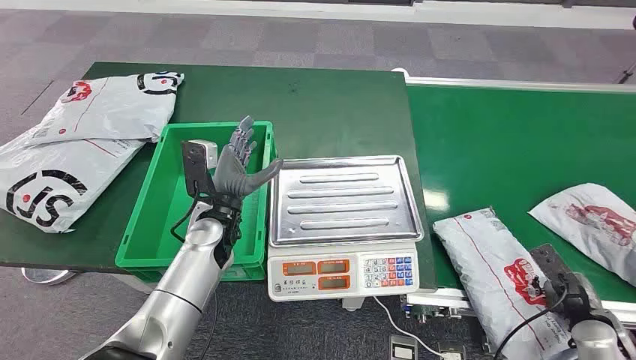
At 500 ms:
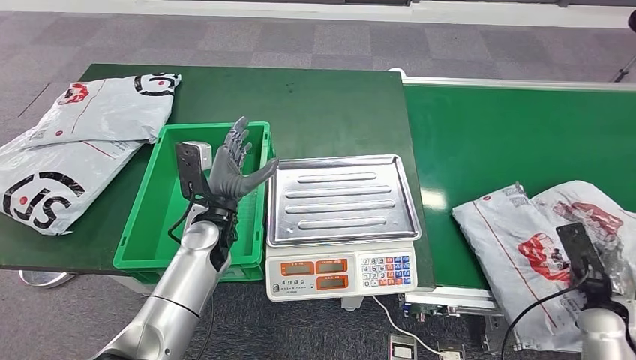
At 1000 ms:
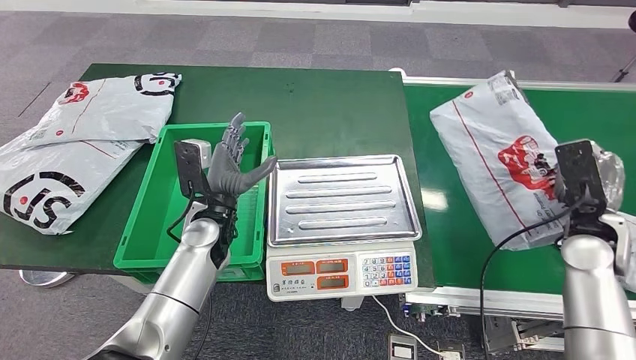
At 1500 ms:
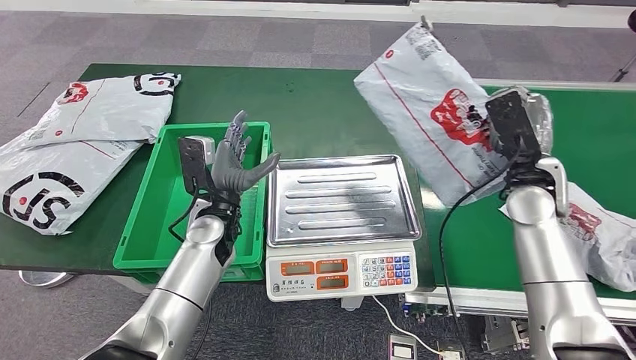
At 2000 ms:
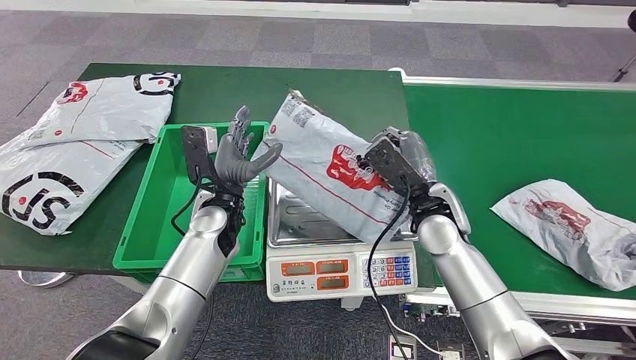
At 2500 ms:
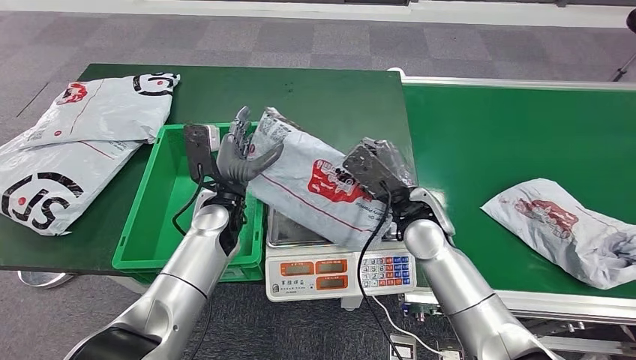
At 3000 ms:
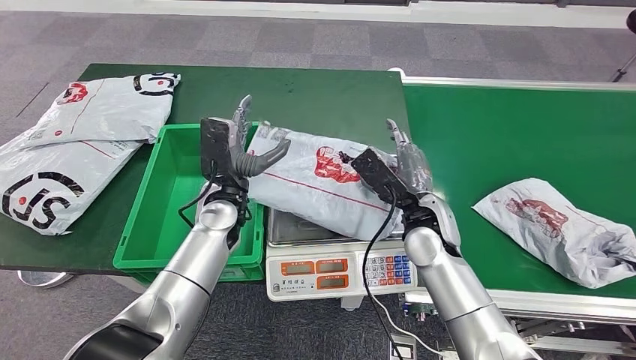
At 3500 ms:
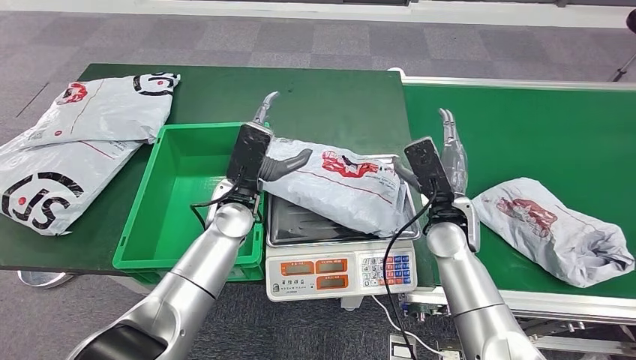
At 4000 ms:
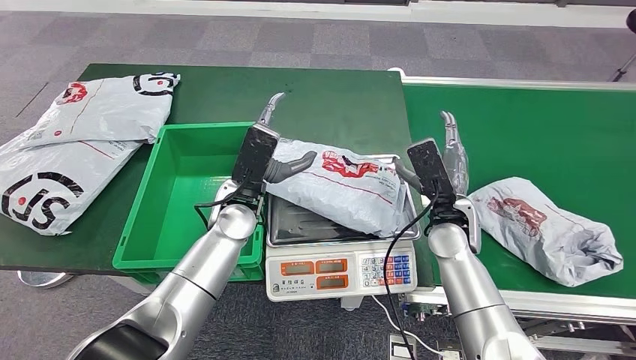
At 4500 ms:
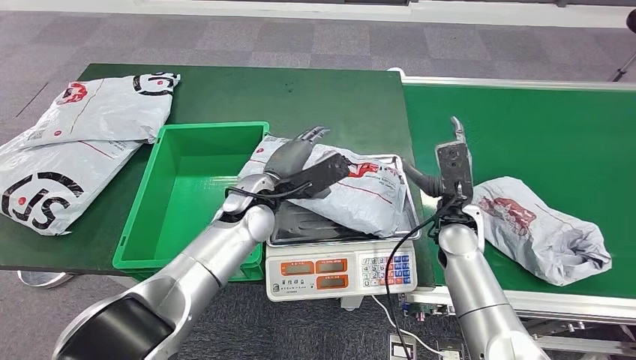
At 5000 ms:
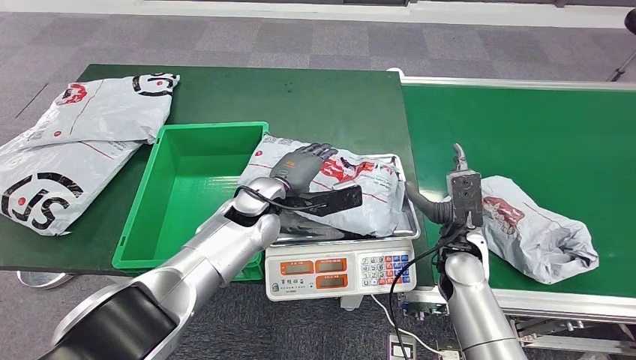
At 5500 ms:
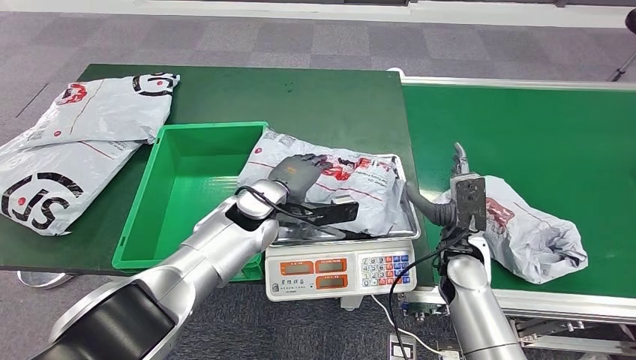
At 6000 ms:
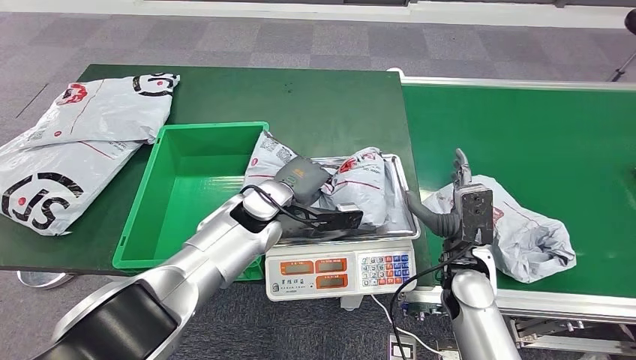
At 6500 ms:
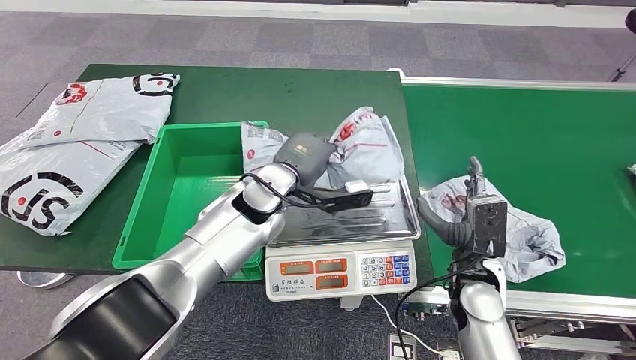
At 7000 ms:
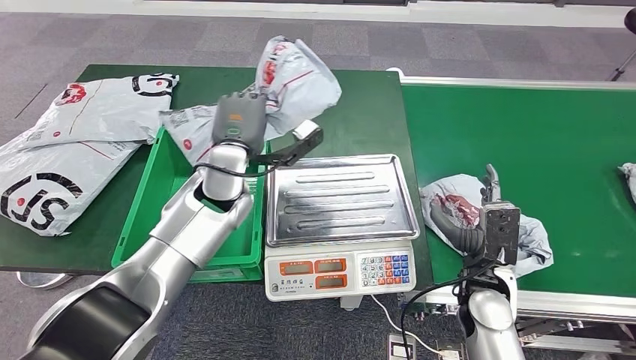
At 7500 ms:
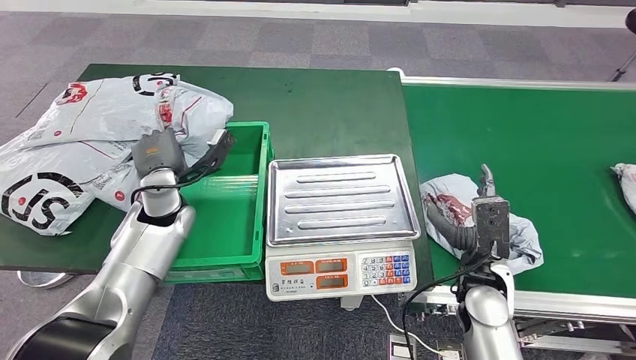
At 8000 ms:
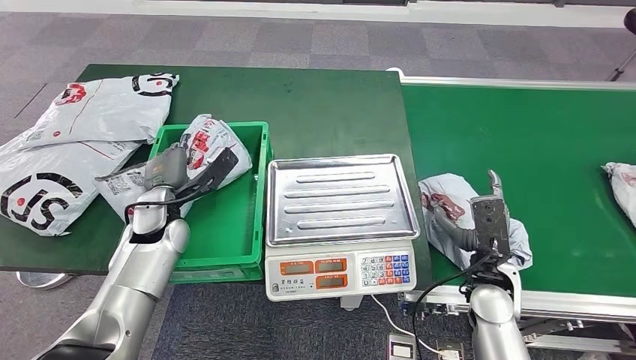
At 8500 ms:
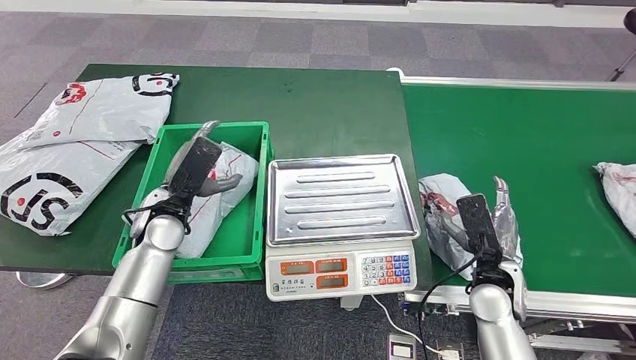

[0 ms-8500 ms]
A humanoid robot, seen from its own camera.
Step, 0 ms to 1000 ms: Take the parcel off the conveyor belt.
Step, 1500 ms to 3000 ms: Place the parcel onto the inbound machine.
Step, 5000 ms to 6500 ms: Pick up the parcel from the inbound machine.
Step, 7500 ms to 8500 ms: Put the parcel inside the courier box.

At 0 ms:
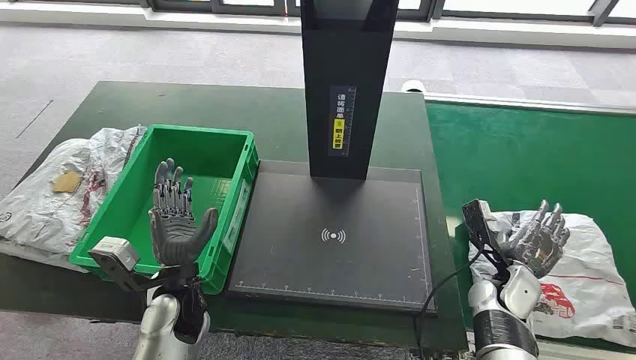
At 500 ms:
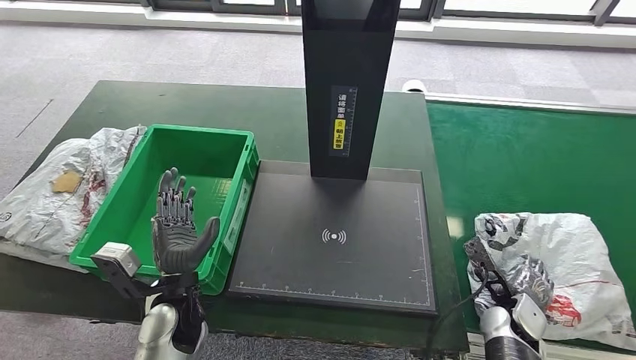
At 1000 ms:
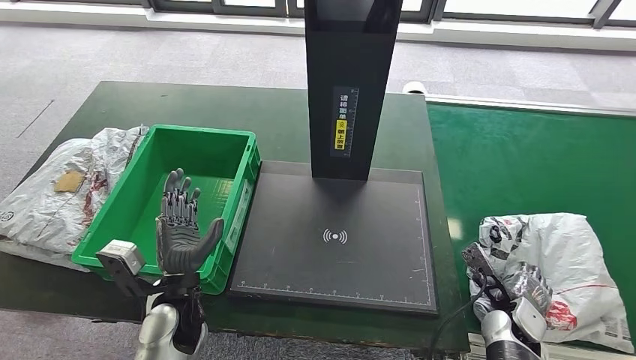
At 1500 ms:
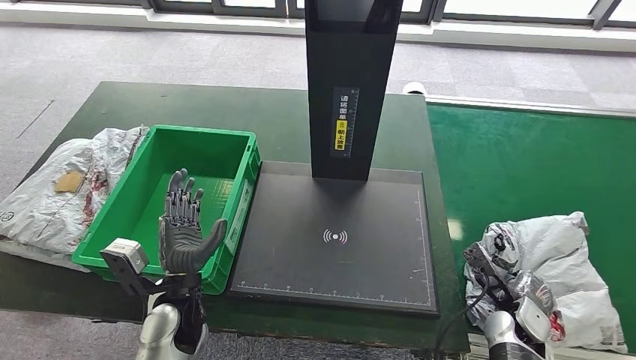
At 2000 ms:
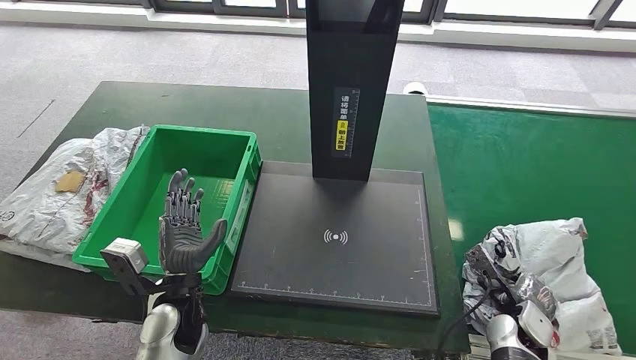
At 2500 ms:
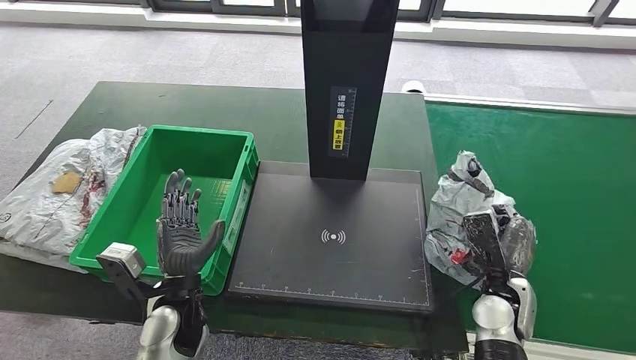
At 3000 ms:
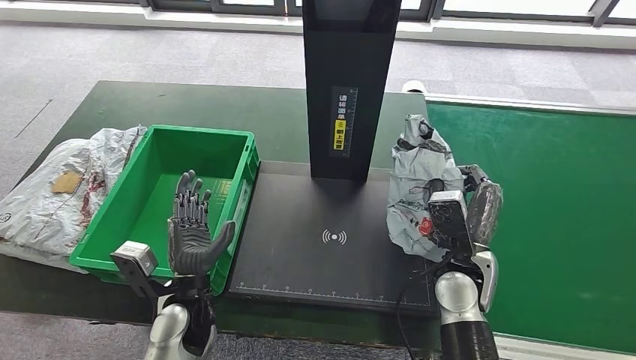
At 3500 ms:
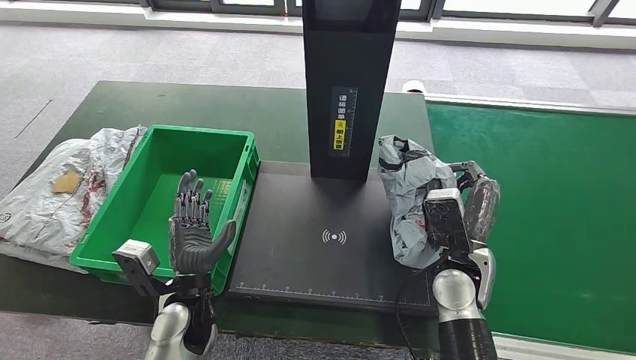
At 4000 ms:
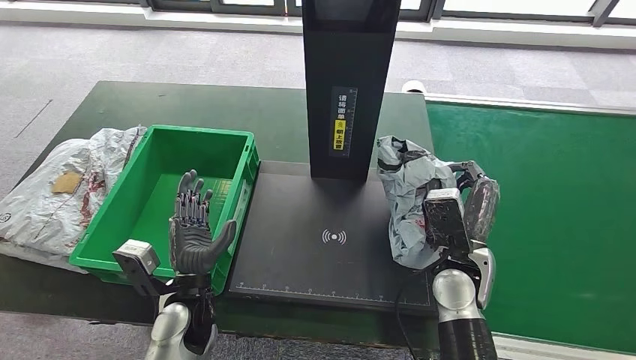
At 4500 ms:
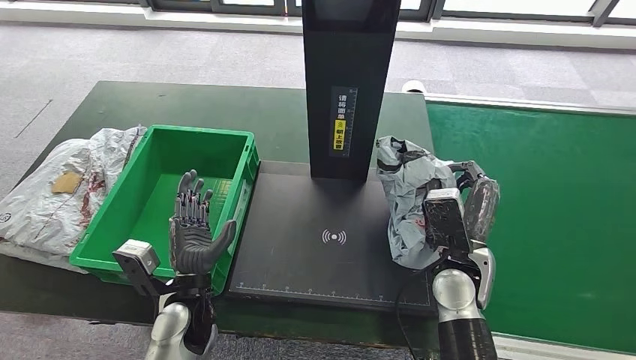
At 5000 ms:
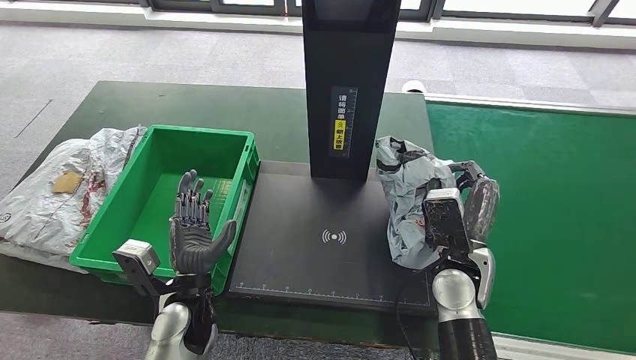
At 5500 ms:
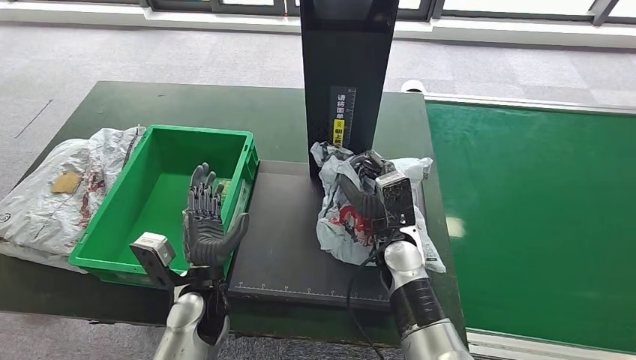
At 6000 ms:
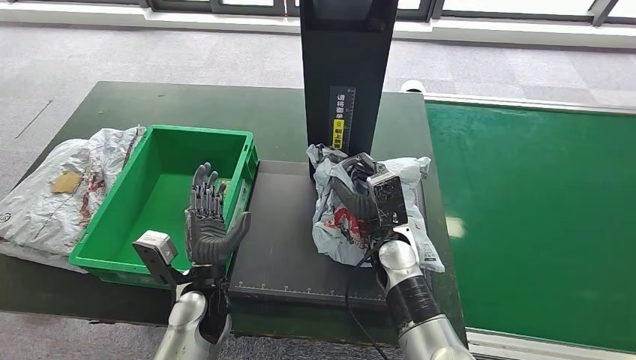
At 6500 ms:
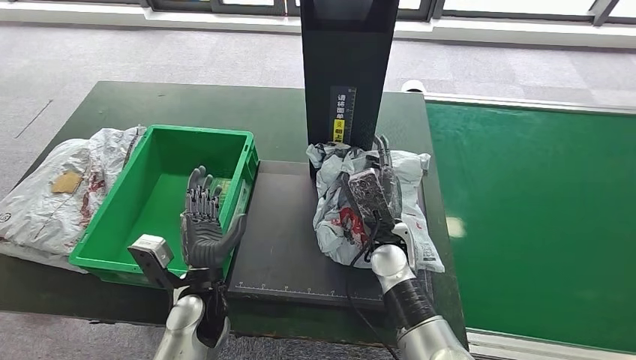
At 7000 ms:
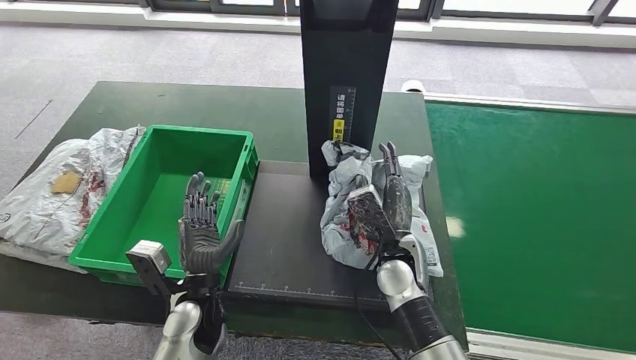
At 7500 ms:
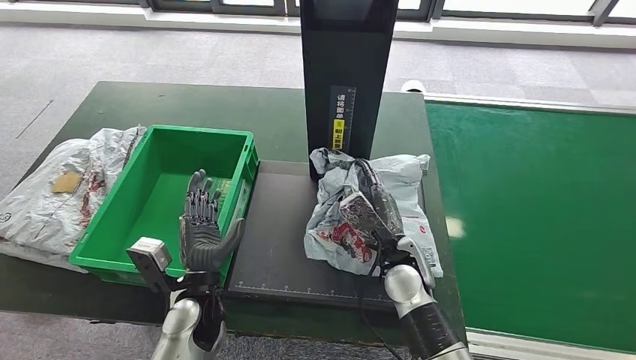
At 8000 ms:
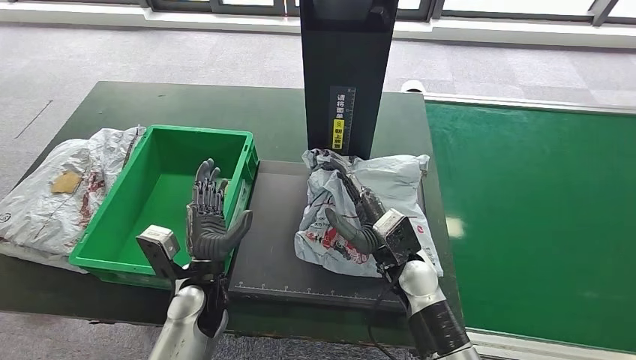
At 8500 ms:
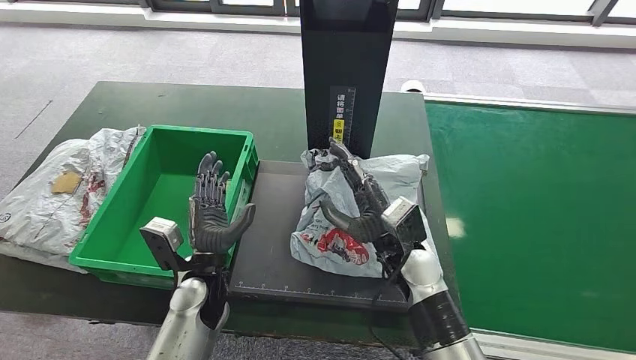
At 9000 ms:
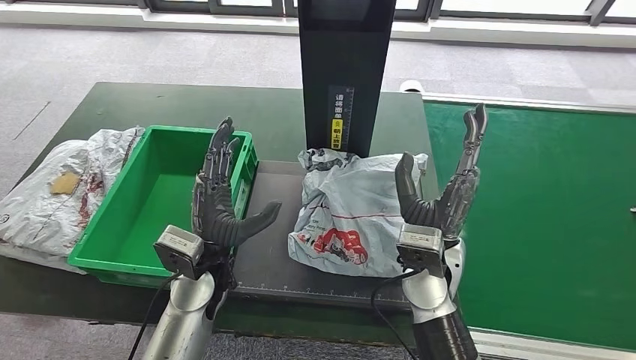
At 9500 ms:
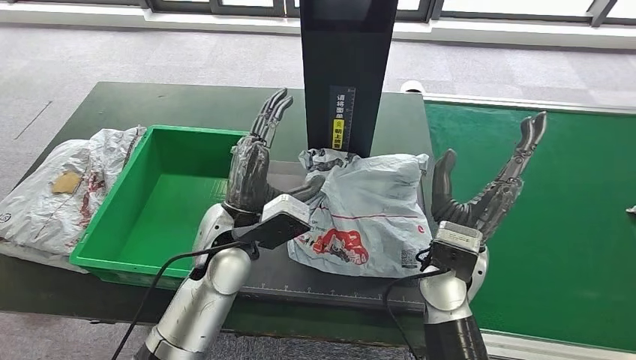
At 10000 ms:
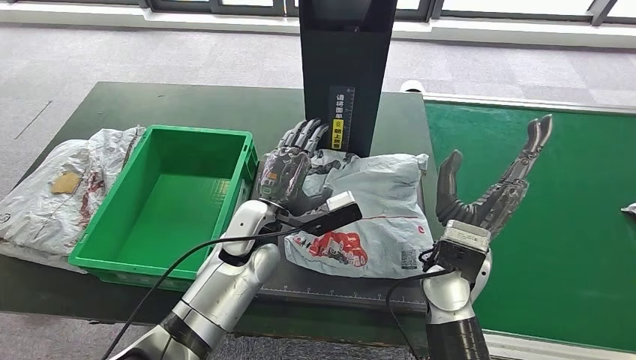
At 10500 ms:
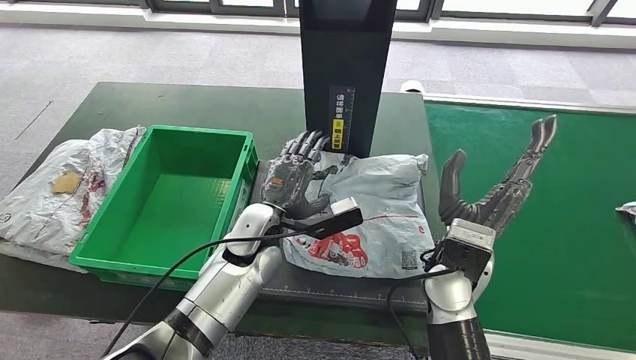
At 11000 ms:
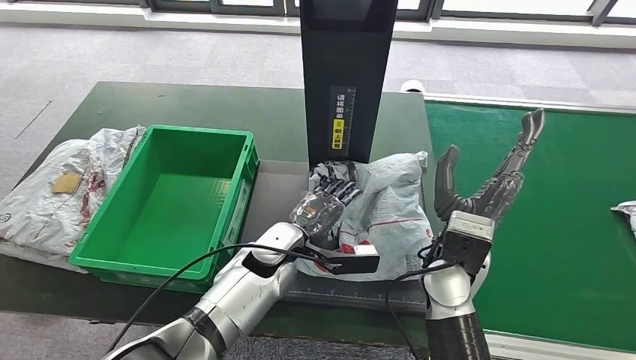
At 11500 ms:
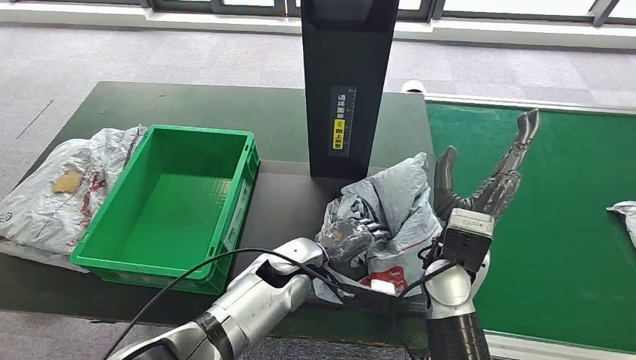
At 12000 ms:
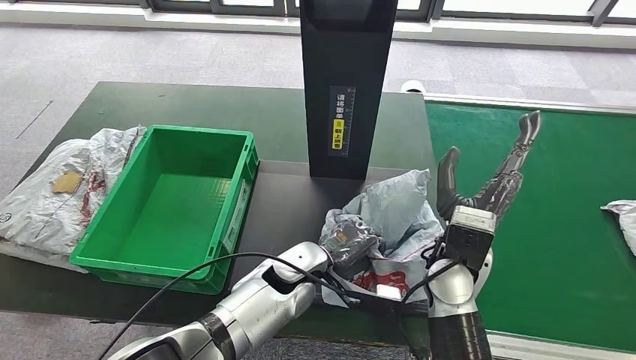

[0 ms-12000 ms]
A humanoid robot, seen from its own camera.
Step, 0 ms to 2500 ms: Take the parcel off the conveyor belt.
Step, 3500 ms to 8500 ms: Place the parcel onto the inbound machine.
4000 ms to 6000 ms: The right hand heads to the left, covering about 10 cm.
8000 ms to 10000 ms: The right hand is displaced upward by about 5 cm. The left hand goes about 15 cm upward, to the right and forward.
10000 ms to 12000 ms: The left hand moves downward and to the right, about 10 cm.
